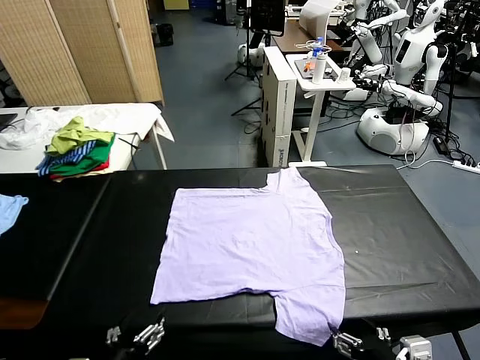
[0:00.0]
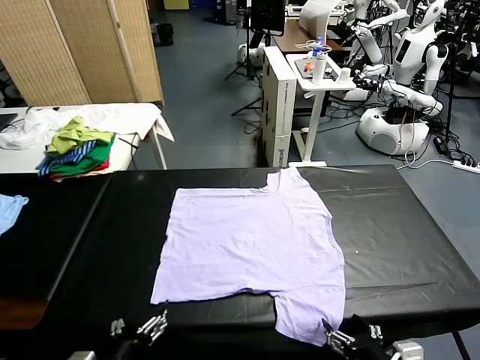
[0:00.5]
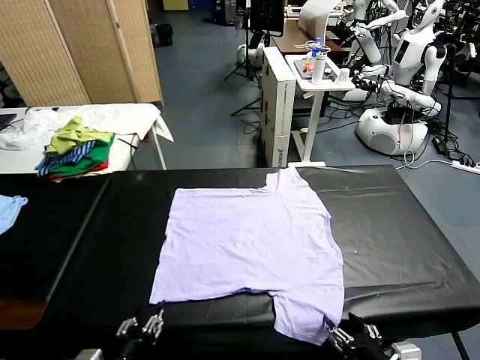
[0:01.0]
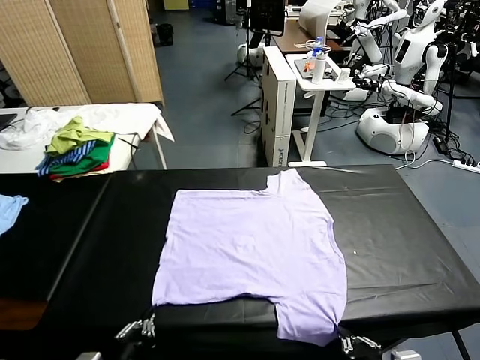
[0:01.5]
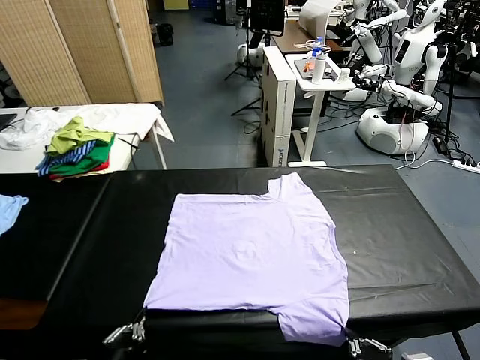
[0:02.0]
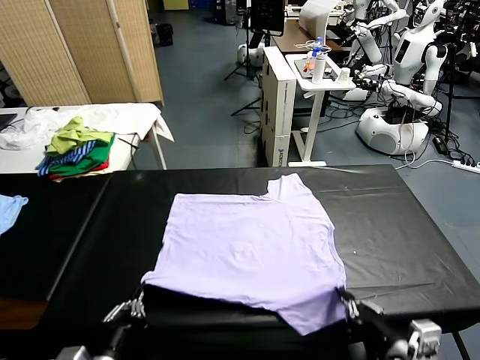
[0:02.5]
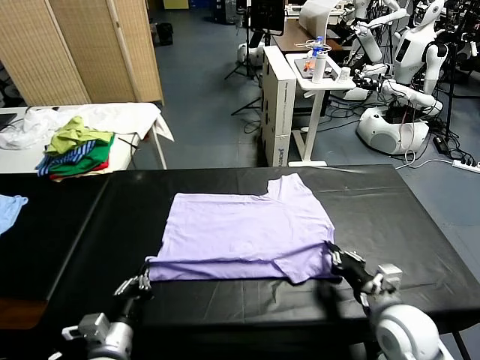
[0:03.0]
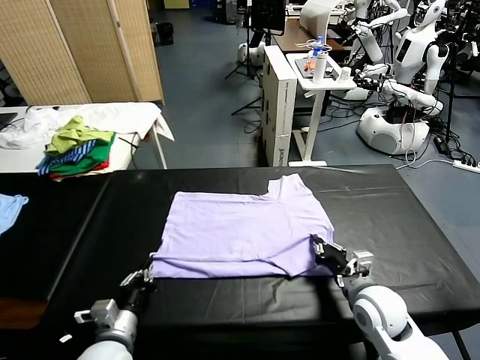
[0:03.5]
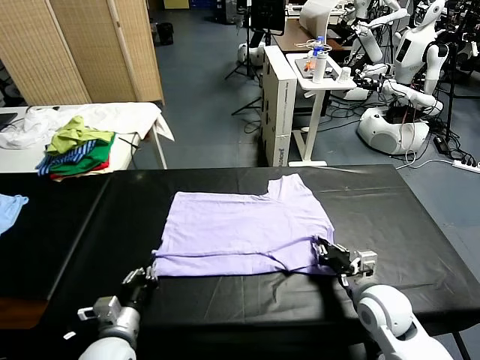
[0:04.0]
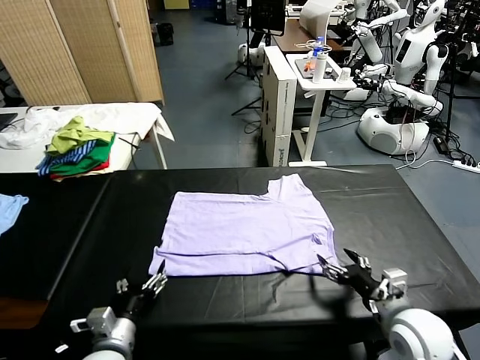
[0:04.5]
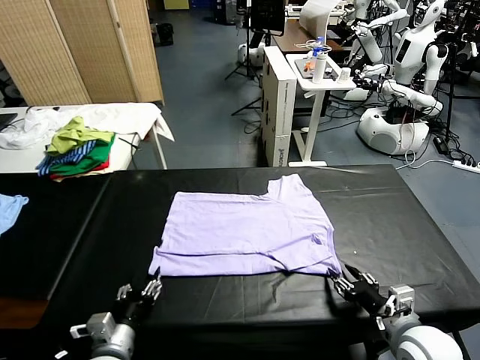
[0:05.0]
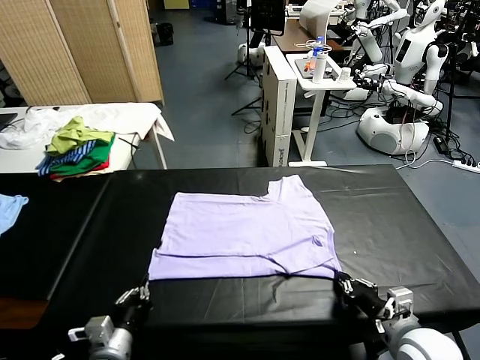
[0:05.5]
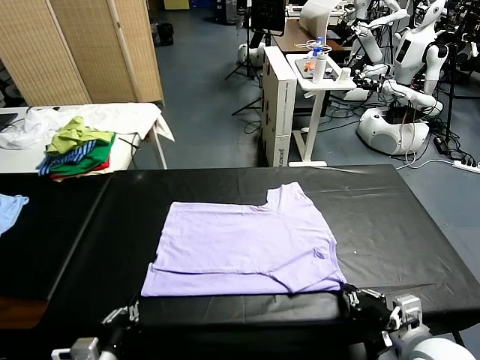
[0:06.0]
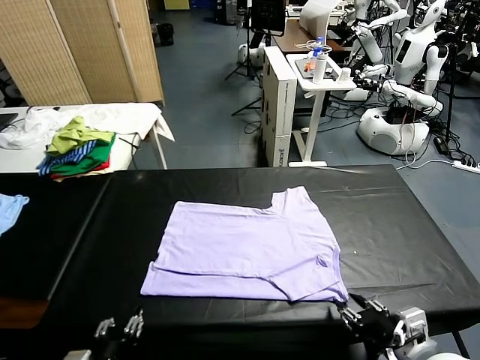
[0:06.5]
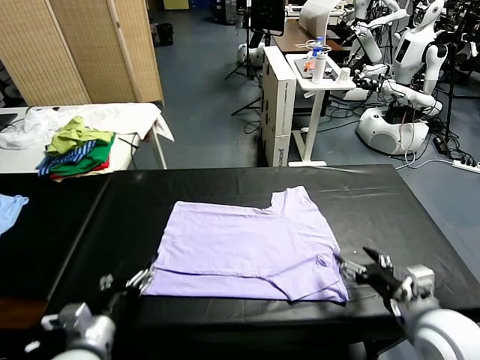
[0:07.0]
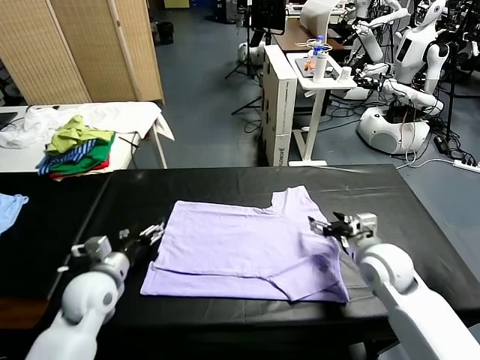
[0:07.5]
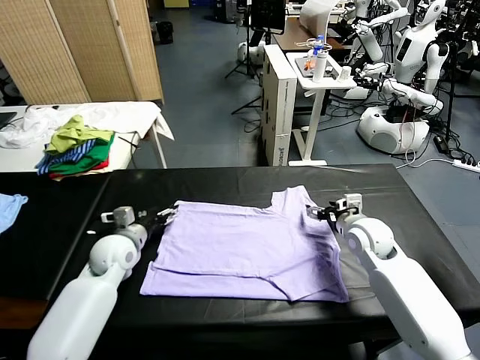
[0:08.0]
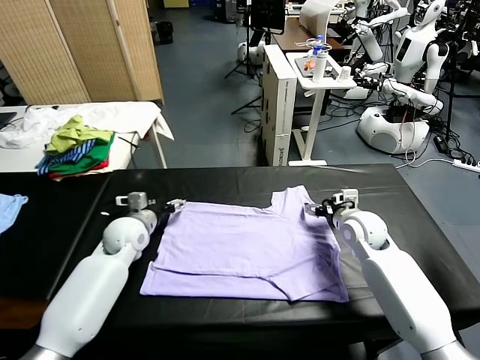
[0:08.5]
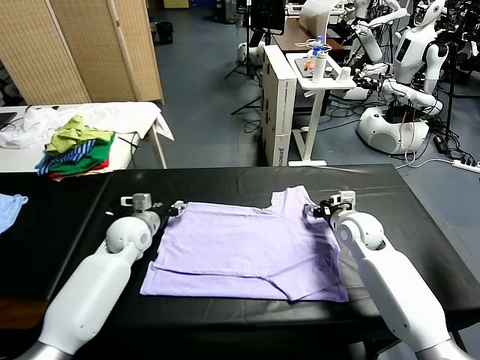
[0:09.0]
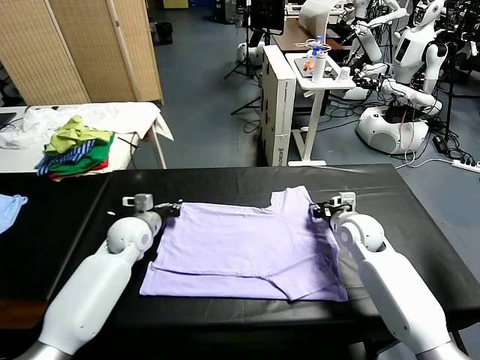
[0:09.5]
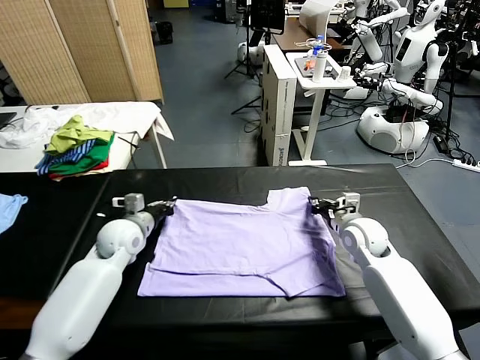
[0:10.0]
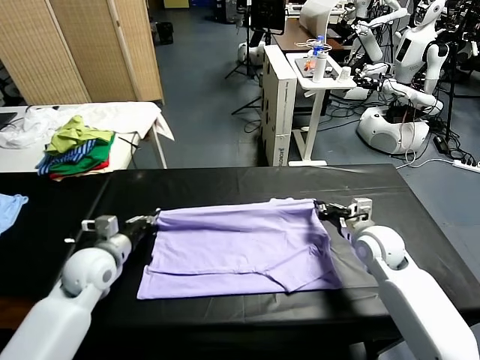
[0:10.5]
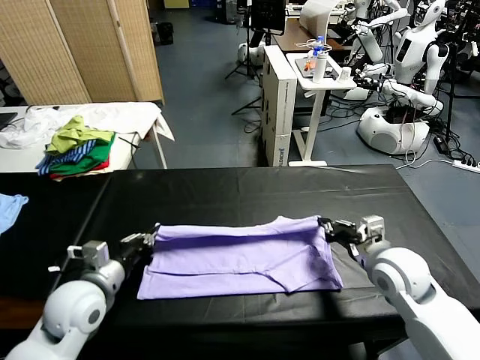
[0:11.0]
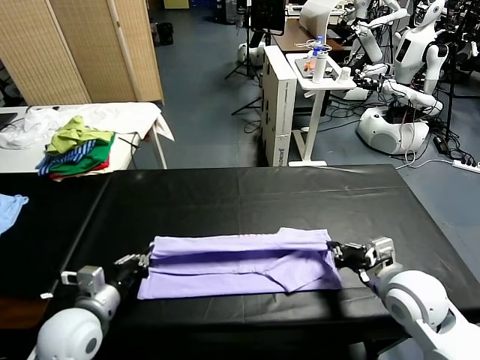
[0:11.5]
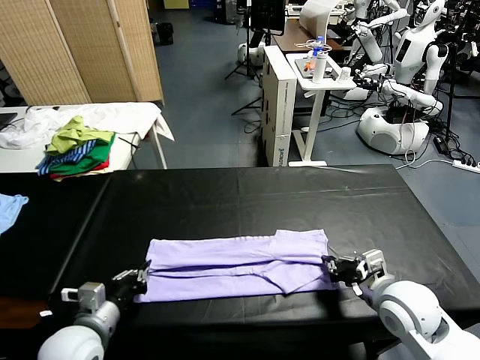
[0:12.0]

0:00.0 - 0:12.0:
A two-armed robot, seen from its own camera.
Task of the whole recording: fold and organize the clothes.
Step, 0:00.0 - 0:01.0: use both grippers simultaneously to clamp the lower edge of the clothing fabric.
Step, 0:02.0 - 0:04.0: use both grippers to drag the lower edge of the fabric forward and fold it over the upper edge.
Step, 0:04.5 - 0:06.5: Drag the clothes downward with both gripper.
Step, 0:07.0 - 0:09.5: use both grippers simultaneously to clamp the upper edge of the clothing fabric.
0:02.0 - 0:04.0: The right gripper shifts some 15 cm forward, and opens, while the left gripper heads forward and downward, covering roughly 15 cm, and opens its fingers.
0:04.0 - 0:06.0: Both grippers travel together backward, some 10 cm. The left gripper closes. The right gripper closes up.
0:06.0 - 0:08.0: Both grippers move forward, about 30 cm. The right gripper opens. The left gripper opens its fingers.
0:08.0 - 0:10.0: The right gripper closes. The left gripper closes.
0:10.0 - 0:12.0: The two grippers go about 20 cm backward.

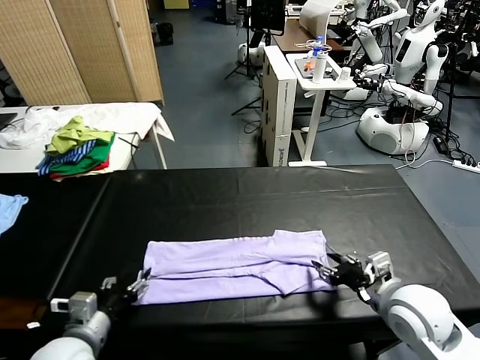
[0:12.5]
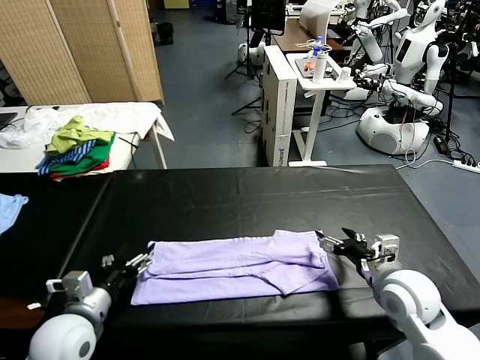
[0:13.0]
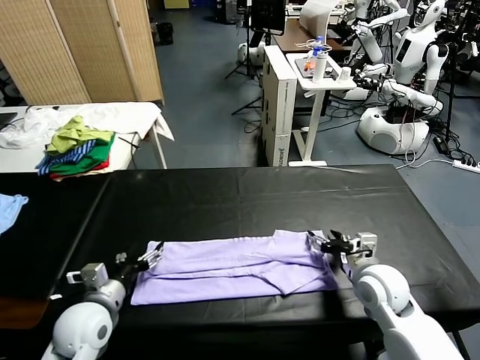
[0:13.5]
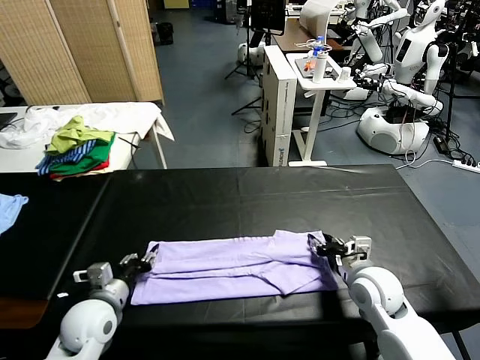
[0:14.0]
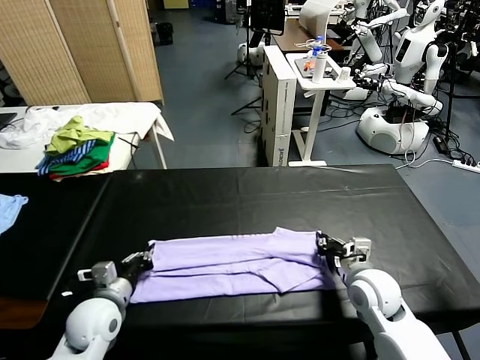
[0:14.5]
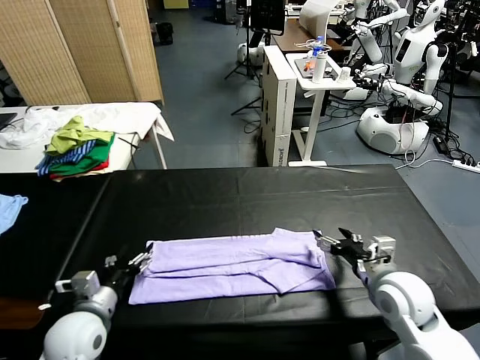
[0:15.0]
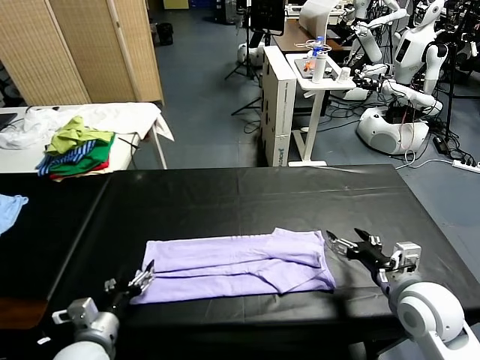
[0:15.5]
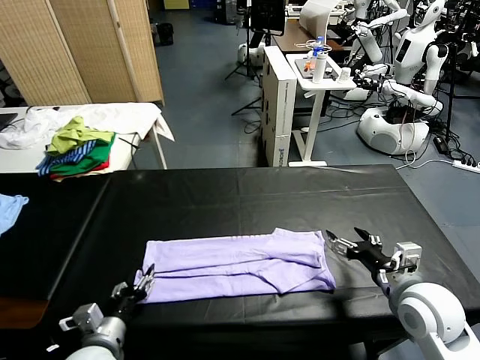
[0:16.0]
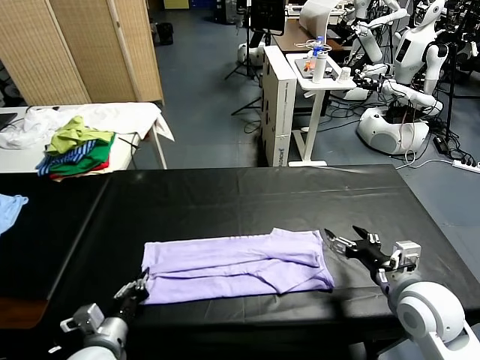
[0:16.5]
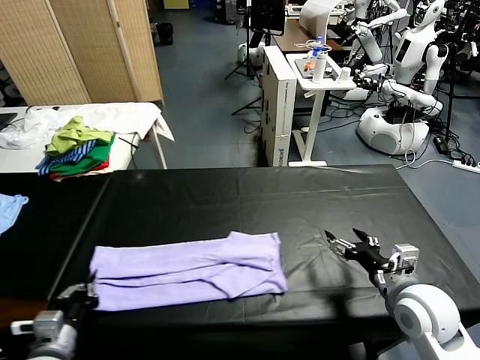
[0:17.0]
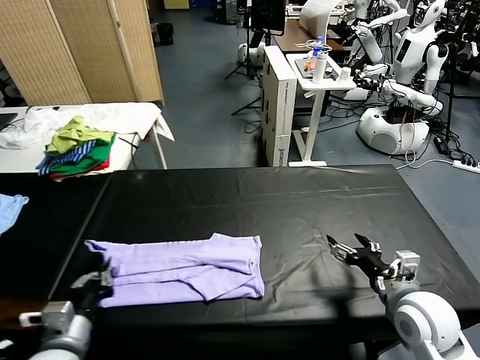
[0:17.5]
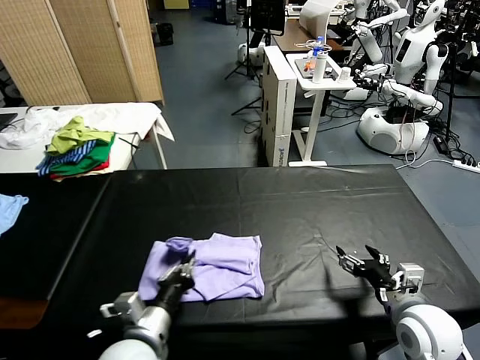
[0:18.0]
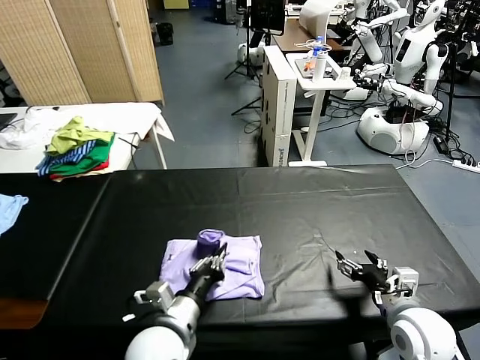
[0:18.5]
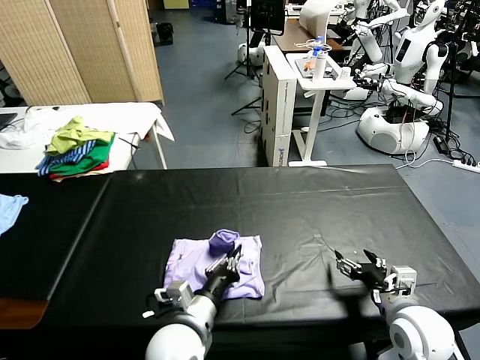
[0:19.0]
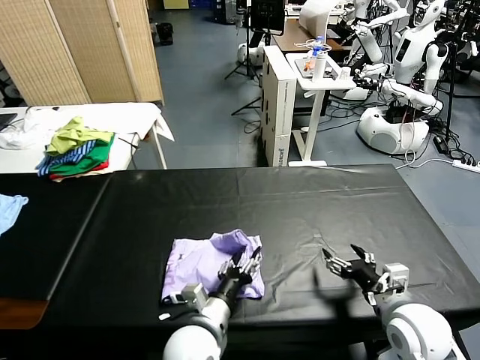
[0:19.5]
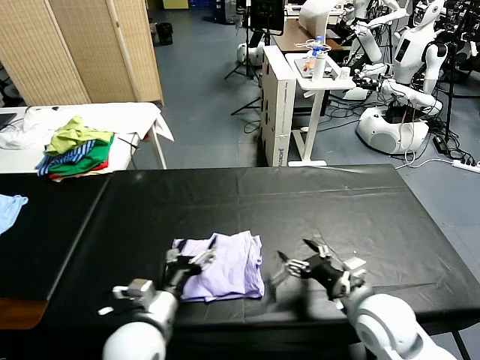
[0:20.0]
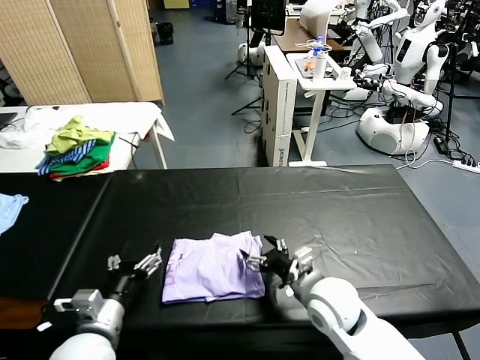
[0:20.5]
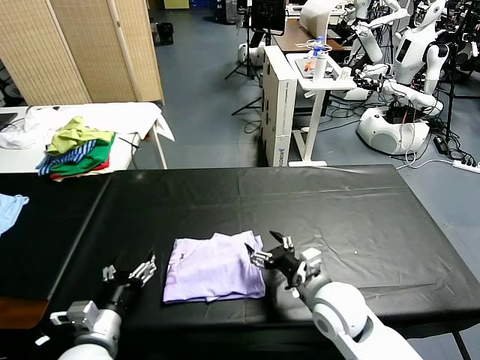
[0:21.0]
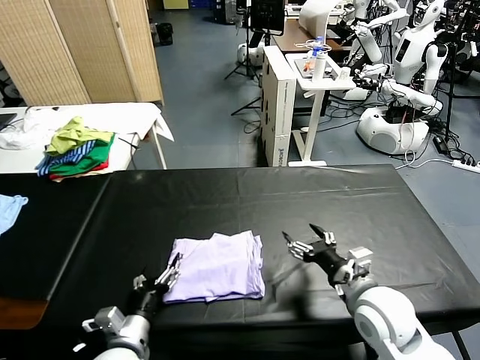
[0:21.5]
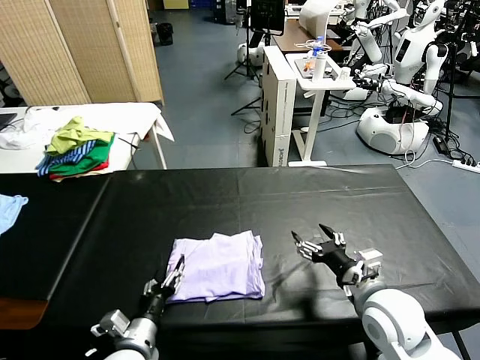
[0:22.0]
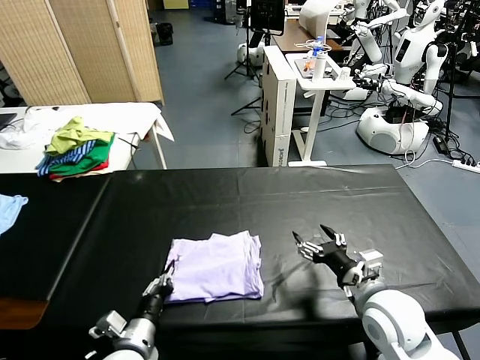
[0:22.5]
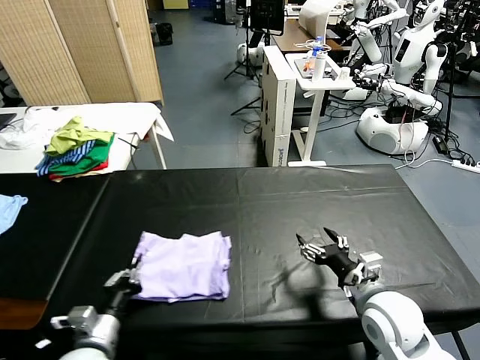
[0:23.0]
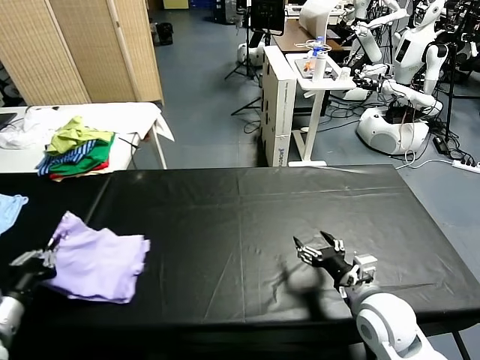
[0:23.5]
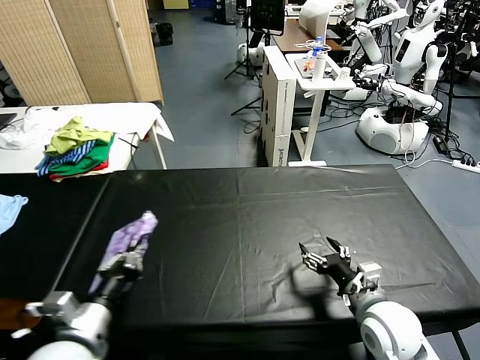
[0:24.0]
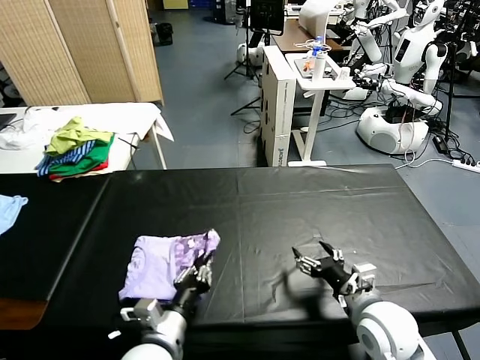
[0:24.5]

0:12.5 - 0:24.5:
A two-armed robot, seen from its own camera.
Task of the whole recording: fold and organize the clothes.
Step, 0:13.0 - 0:16.5: use the left gripper to clamp the left edge of the fabric.
Step, 0:17.0 - 0:19.5: use the left gripper to drag the left edge of the fabric to the left and folds it over the right edge.
0:12.5 - 0:14.5: The right gripper heads downward and forward, covering approximately 10 cm, and closes up. Meanwhile the left gripper shifts some 10 cm forward and downward, and closes up.
0:14.5 - 0:16.5: The right gripper is displaced upward and backward by roughly 10 cm, and opens. The left gripper shifts approximately 10 cm backward, and opens, then closes again.
0:16.5 - 0:18.5: The left gripper shifts about 15 cm to the right. Meanwhile the right gripper goes some 5 cm downward.
0:18.5 - 0:20.5: The left gripper travels to the left by some 15 cm, and opens. Meanwhile the right gripper goes about 15 cm to the left and forward.
0:20.5 - 0:22.5: The left gripper shifts approximately 5 cm downward, and closes, while the right gripper is displaced to the right by about 10 cm.
0:22.5 - 0:24.5: The left gripper goes some 5 cm upward, and travels to the left and back again, approximately 20 cm each way.

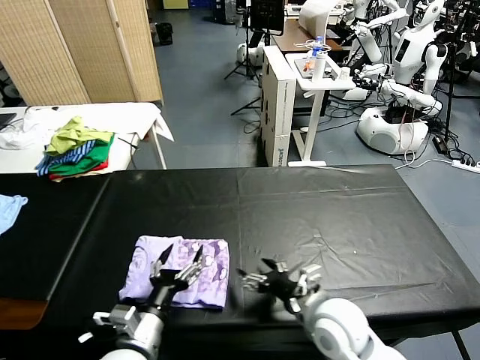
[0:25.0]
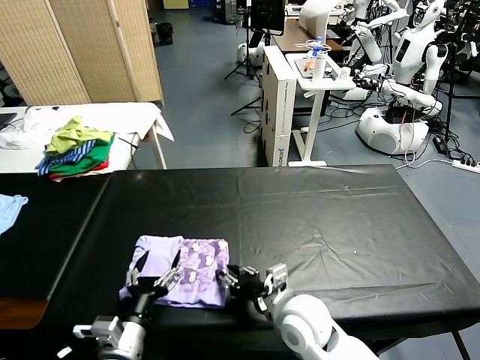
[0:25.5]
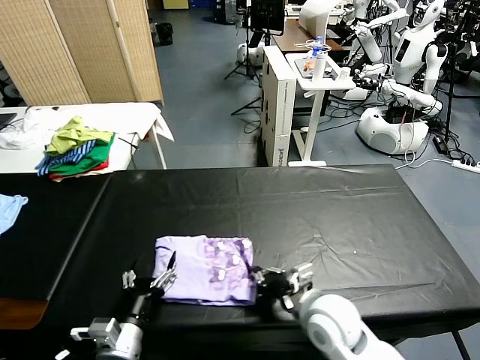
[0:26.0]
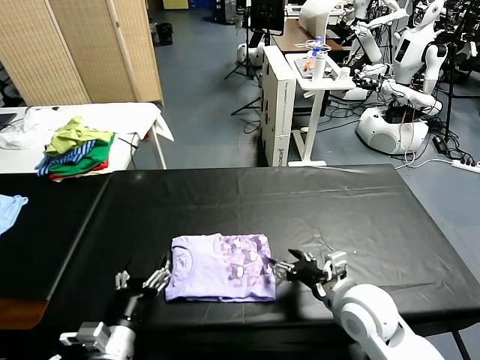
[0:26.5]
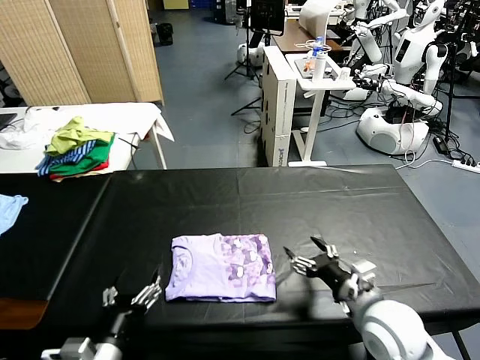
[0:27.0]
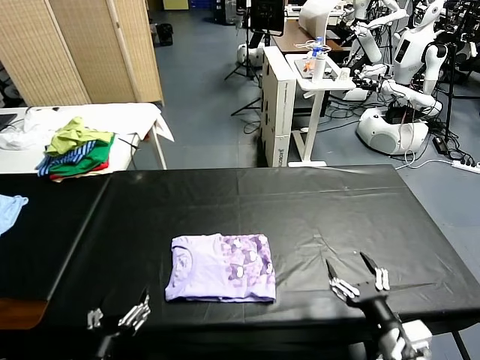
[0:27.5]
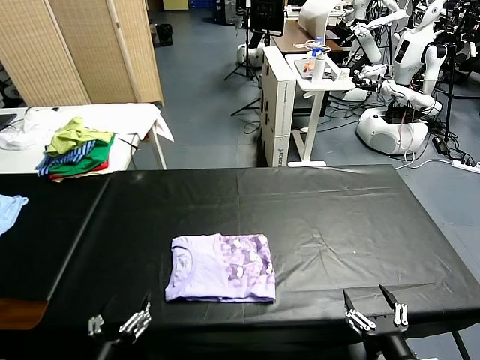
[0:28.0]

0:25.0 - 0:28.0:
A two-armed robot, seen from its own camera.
Task of the whole recording: fold and organize the clothes.
Step, 0:25.0 - 0:26.5: Drag the clothes to the center of the table.
0:25.0 - 0:26.5: The right gripper ends up about 5 cm from where it was, and closes and opens again.
0:26.5 - 0:28.0: The left gripper shifts roughly 10 cm backward. The right gripper shifts about 20 cm backward.
